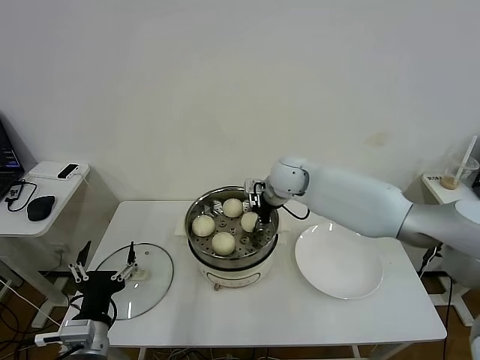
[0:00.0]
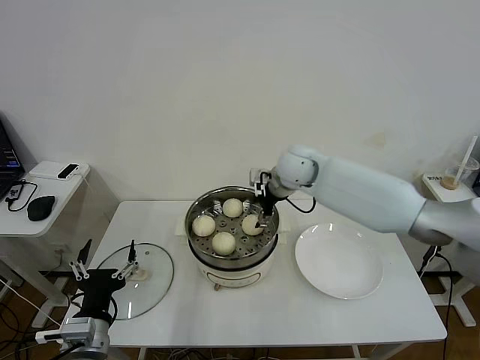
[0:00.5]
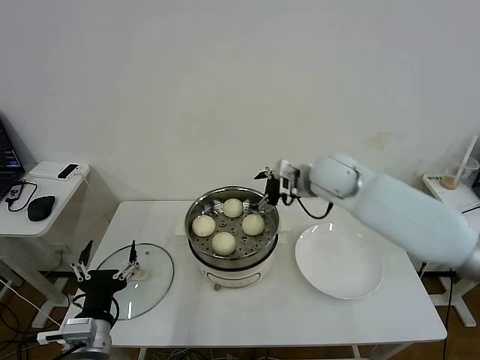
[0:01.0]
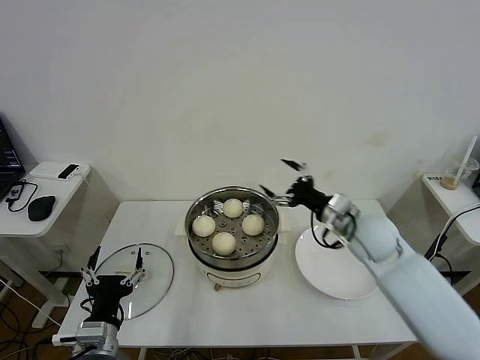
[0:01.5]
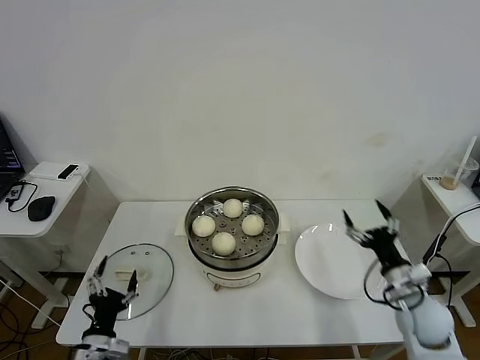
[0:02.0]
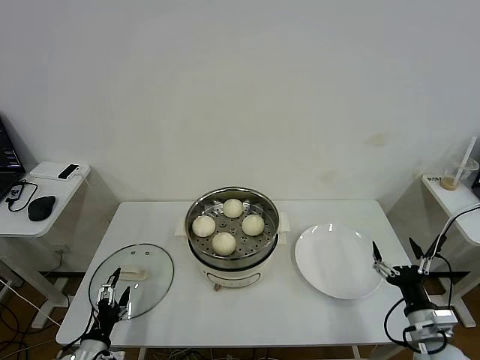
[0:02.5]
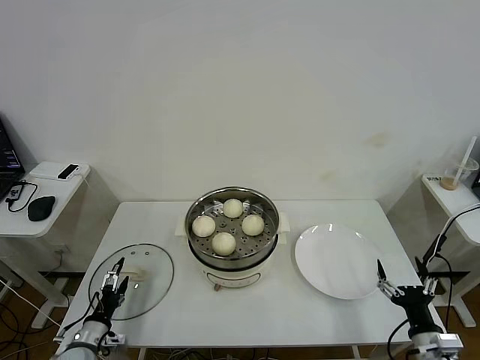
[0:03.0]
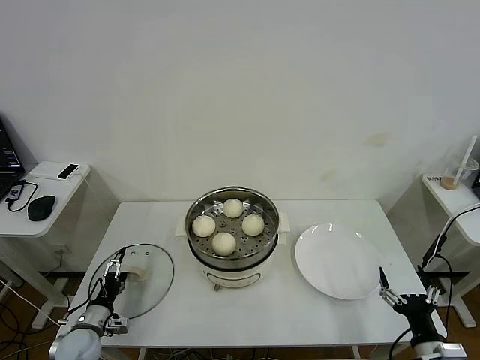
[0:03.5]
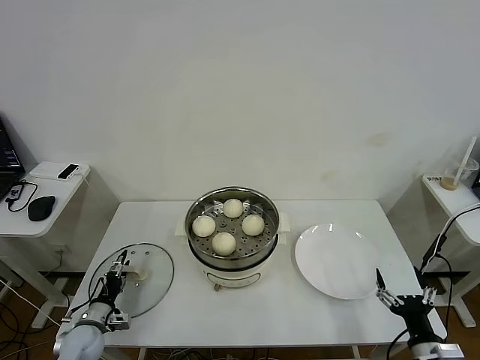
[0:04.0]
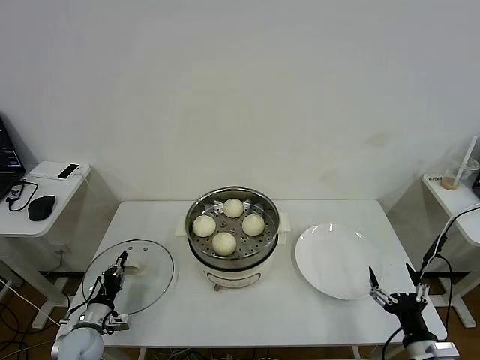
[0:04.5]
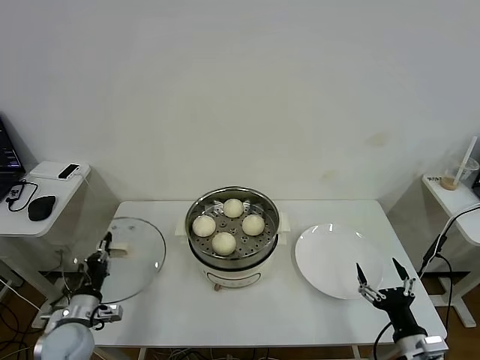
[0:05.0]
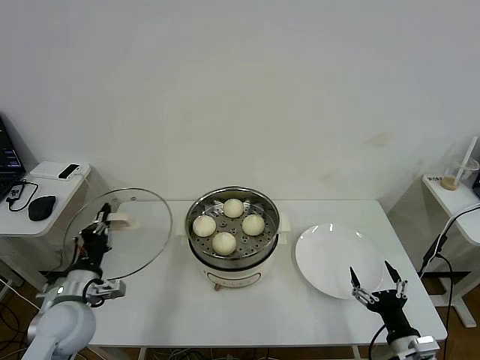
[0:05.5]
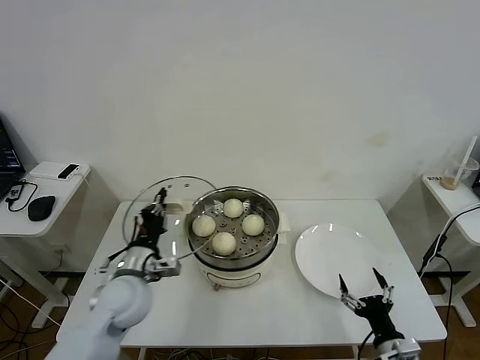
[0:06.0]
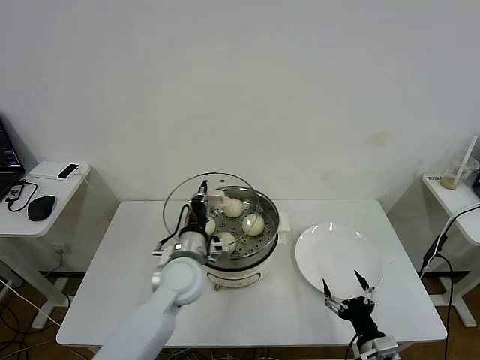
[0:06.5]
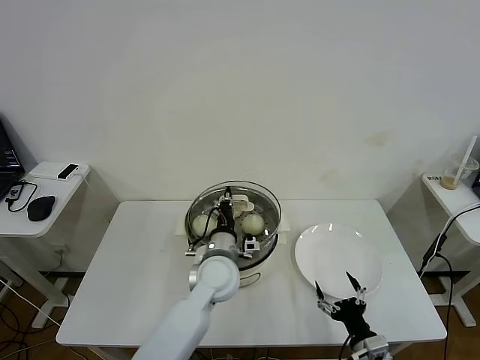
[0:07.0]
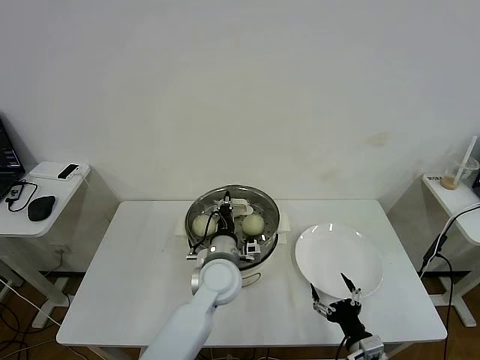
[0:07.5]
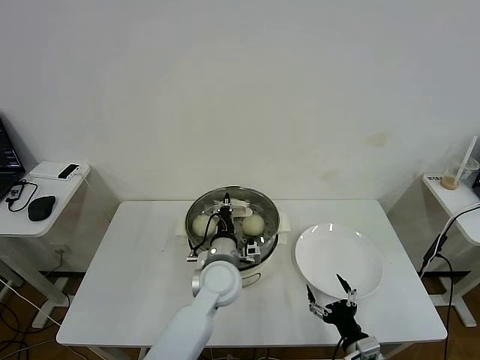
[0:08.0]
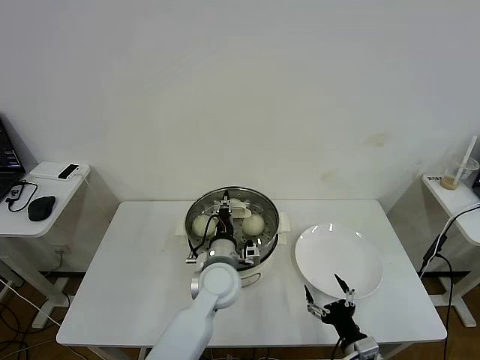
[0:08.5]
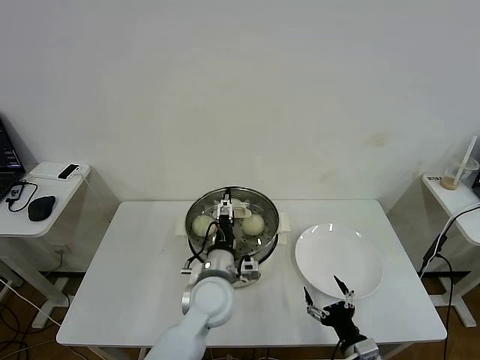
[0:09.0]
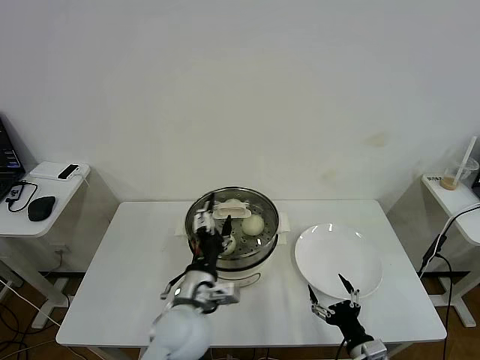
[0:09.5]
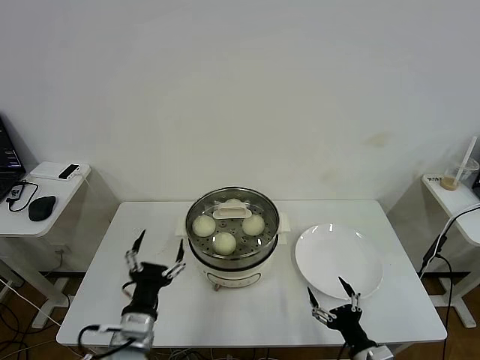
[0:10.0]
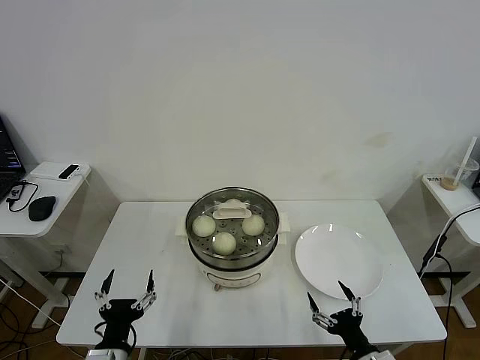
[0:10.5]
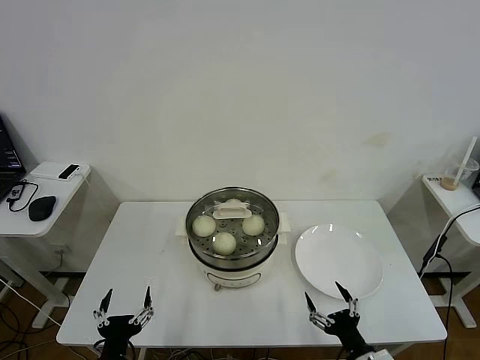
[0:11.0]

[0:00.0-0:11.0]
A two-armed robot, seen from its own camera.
Task of the whole recording: take steamed baozi put them in steamer then cover it.
Step, 0:01.0 to 0:04.5: Grasp the pot lid with left gripper.
Step, 0:05.0 to 0:09.0: Place the pot lid on the steamer with left gripper.
0:00.0 to 0:02.0: The left gripper is displaced downward by about 10 cm. The right gripper is displaced backward, to the right and downward by about 40 cm, and opens up.
0:02.0 to 0:03.5: The right gripper moves backward, approximately 15 cm; the left gripper travels forward, to the left and downward by approximately 15 cm.
0:03.5 to 0:05.5: The left gripper moves upward, some 15 cm, and closes.
0:05.5 to 0:07.5: The left gripper moves to the right, approximately 30 cm. Meanwhile the right gripper heads to the left, covering approximately 5 cm.
0:07.5 to 0:09.0: The left gripper opens its fingers.
0:09.0 to 0:11.0: The left gripper shifts some 30 cm backward and to the left.
